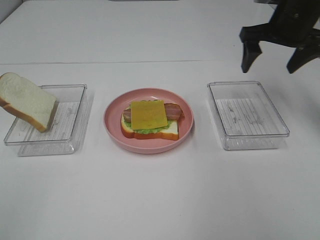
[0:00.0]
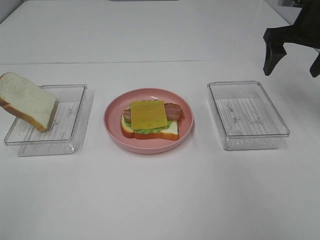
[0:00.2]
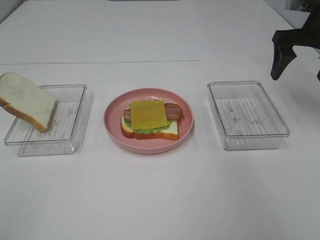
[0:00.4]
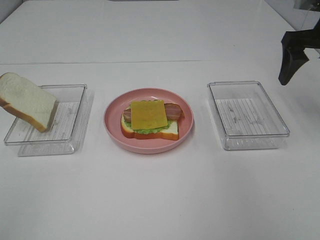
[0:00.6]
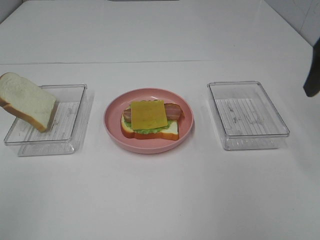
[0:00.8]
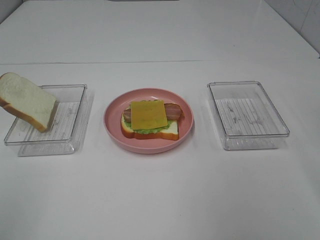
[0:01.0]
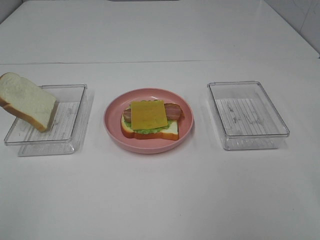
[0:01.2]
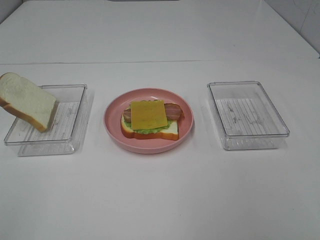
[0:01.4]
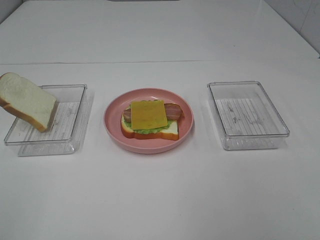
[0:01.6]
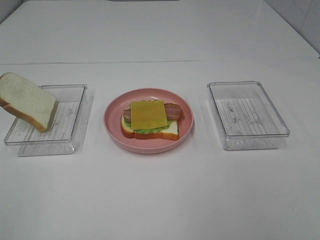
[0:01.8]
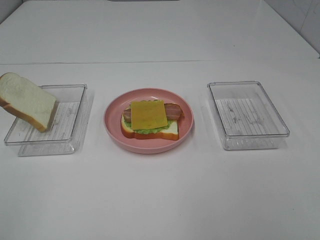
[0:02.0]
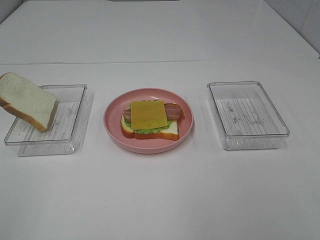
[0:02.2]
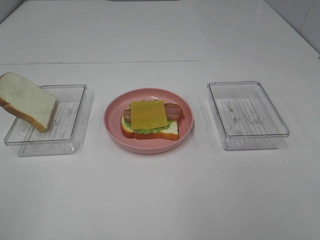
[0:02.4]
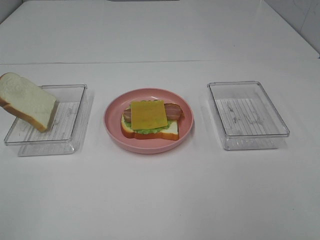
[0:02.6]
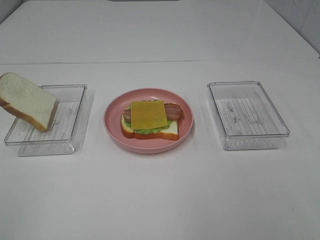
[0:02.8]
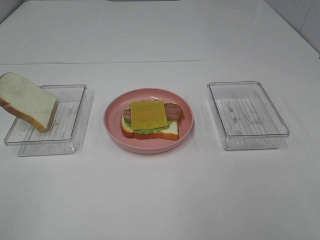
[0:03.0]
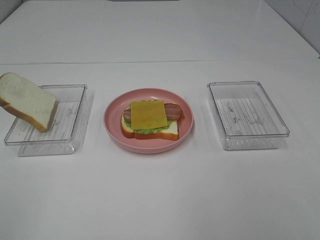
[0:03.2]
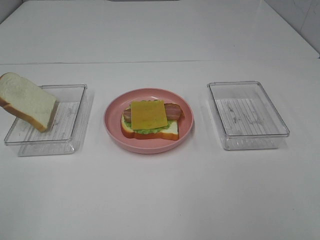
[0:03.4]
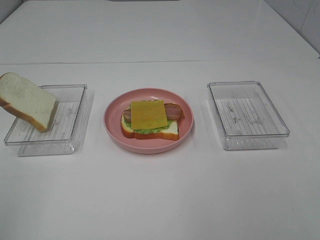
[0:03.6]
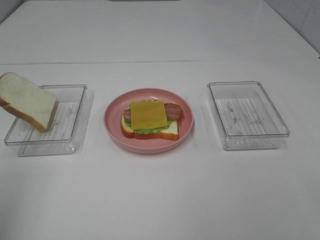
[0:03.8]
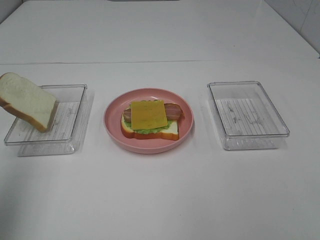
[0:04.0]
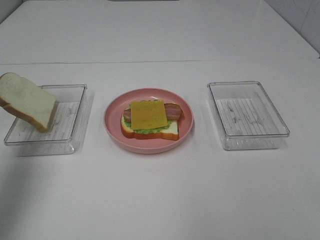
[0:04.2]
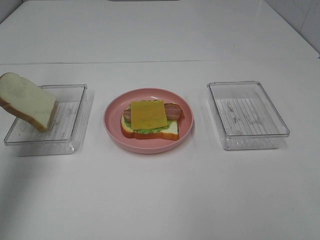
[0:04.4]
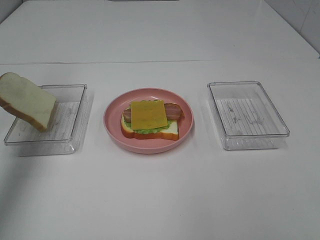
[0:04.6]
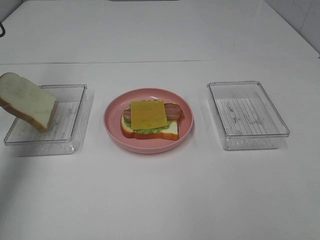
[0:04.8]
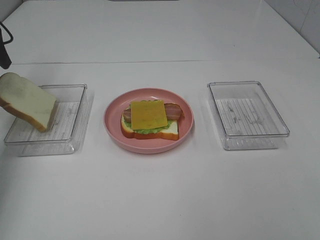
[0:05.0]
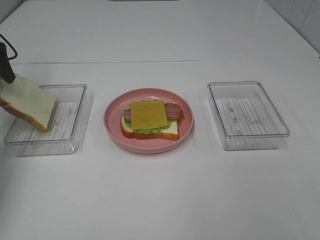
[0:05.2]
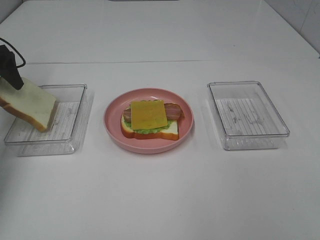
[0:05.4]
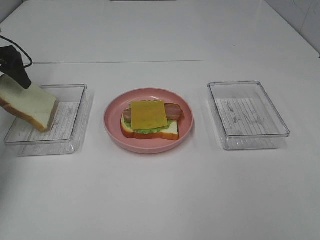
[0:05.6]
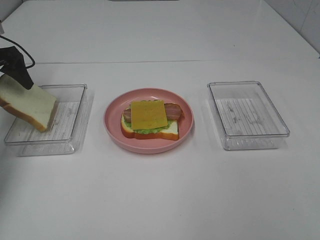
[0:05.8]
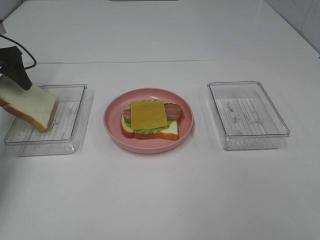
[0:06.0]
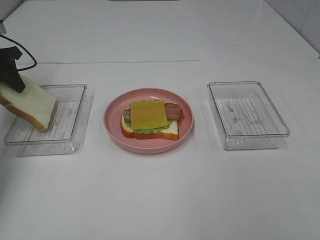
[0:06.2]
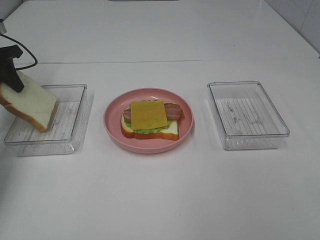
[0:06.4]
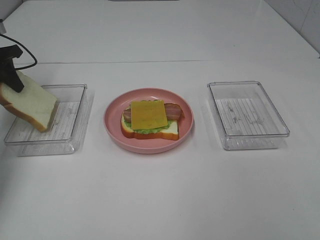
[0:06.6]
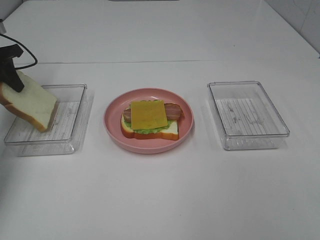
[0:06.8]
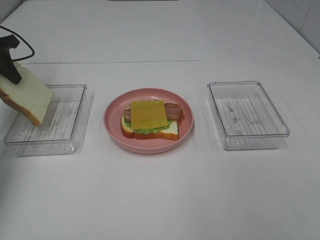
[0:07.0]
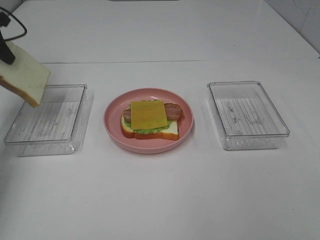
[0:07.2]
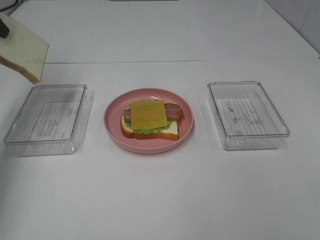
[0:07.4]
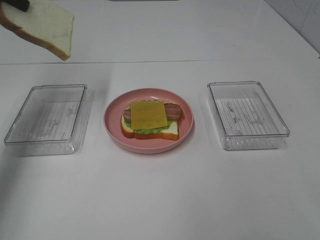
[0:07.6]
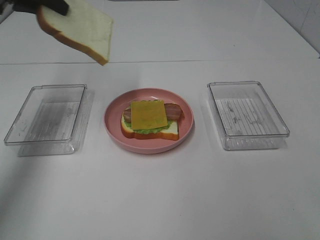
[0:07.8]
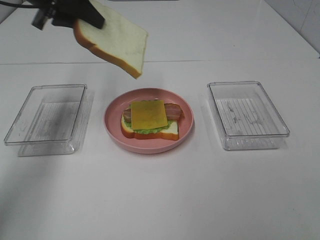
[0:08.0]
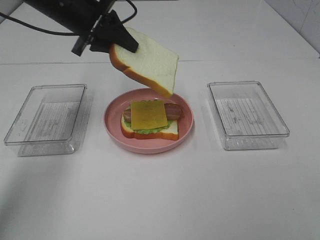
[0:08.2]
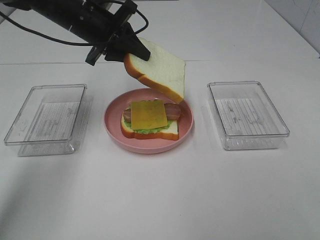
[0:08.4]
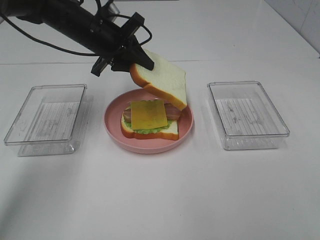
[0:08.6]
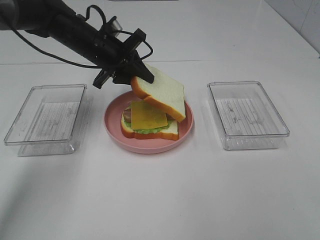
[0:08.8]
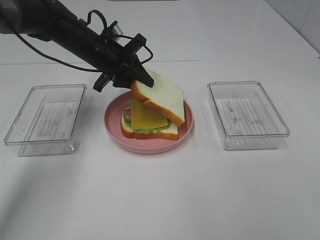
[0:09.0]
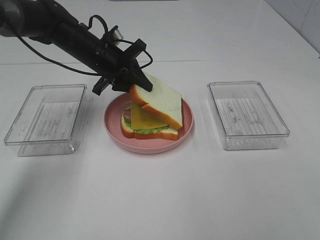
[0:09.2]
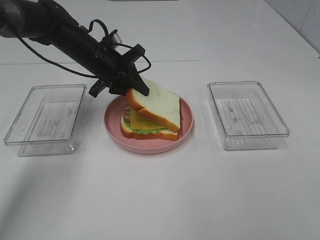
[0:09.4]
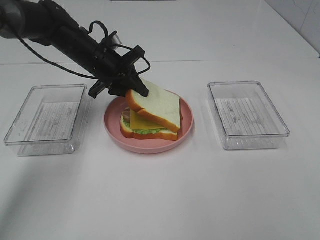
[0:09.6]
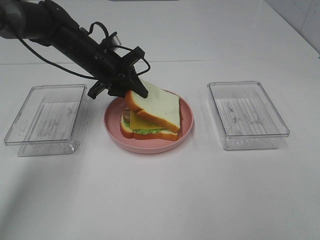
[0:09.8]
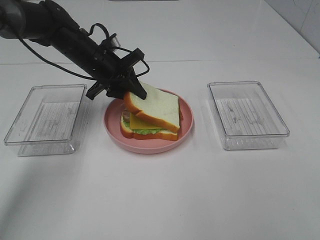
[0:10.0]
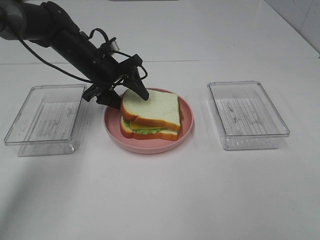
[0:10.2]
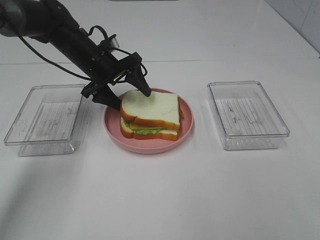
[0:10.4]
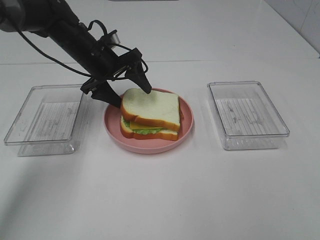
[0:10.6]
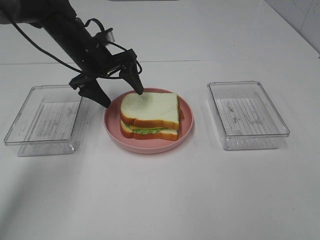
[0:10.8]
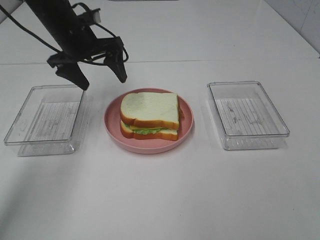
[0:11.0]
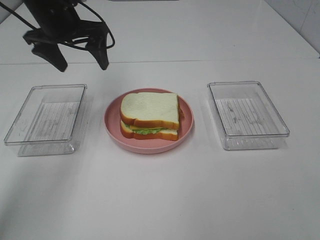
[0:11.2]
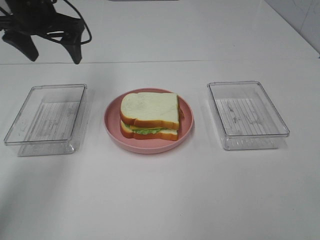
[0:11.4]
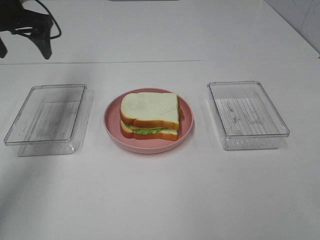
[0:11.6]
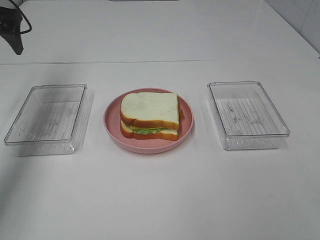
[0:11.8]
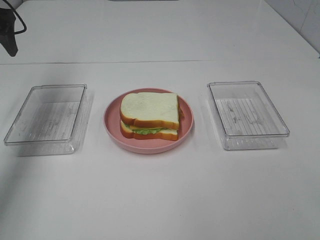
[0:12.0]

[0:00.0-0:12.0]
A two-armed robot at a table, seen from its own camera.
Task of the whole recording: Make sandwiches.
Step, 0:00.0 to 0:06.4: Left hand:grab the bread slice.
0:00.0 to 0:01.6: The right gripper goes approximately 35 cm backward.
0:03.0 to 0:04.4: The left gripper goes about 30 cm forward.
0:04.4 to 0:06.0: The left gripper is displaced forward and downward by about 25 cm.
0:06.0 to 0:07.6: The left gripper goes about 15 cm upward and to the right, and closes.
0:07.6 to 0:09.0: The left gripper moves to the right and downward, some 25 cm.
0:09.0 to 0:10.4: The left gripper opens up.
0:10.4 to 0:12.0: The left gripper moves to the left and upward, approximately 25 cm.

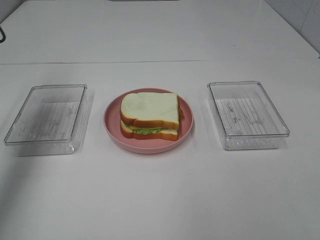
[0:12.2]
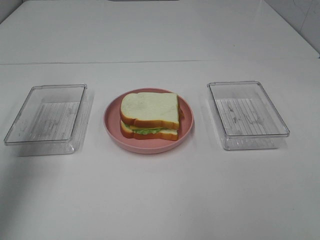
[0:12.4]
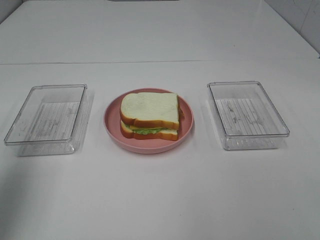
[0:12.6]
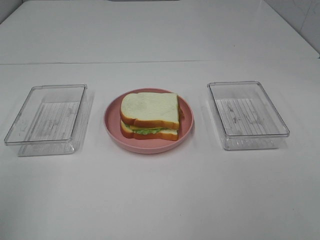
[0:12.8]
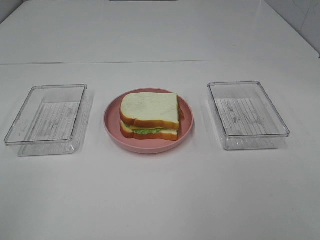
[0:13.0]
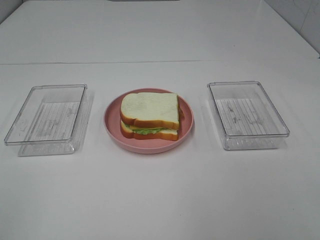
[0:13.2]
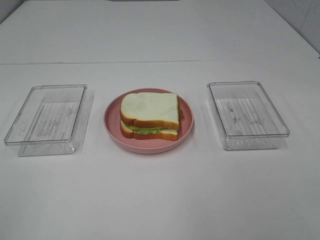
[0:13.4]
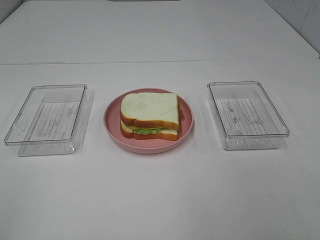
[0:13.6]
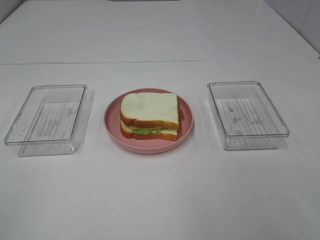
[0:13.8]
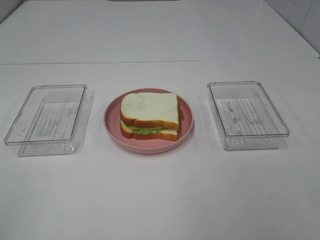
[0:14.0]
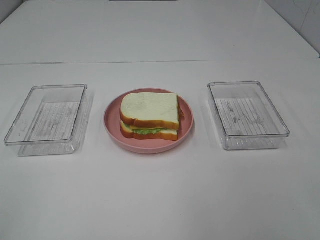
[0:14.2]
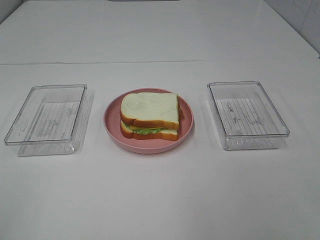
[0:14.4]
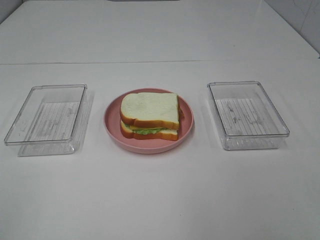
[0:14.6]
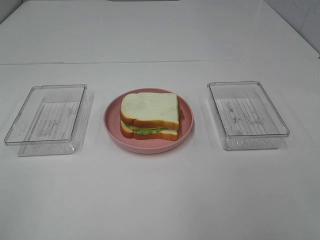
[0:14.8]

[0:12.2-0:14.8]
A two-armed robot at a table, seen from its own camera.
Task of the whole recording: Make sandwiches.
0:12.2 to 0:13.4: The left gripper shifts some 35 cm backward.
0:13.4 to 0:14.8: Both grippers stay about where they are.

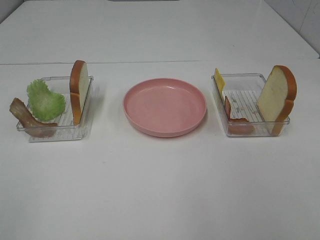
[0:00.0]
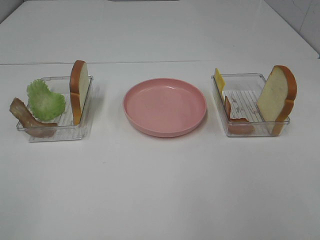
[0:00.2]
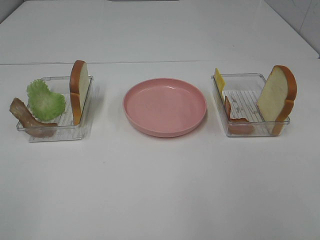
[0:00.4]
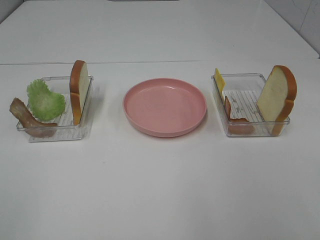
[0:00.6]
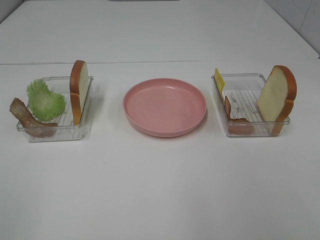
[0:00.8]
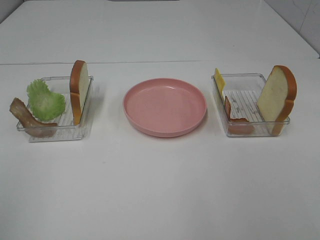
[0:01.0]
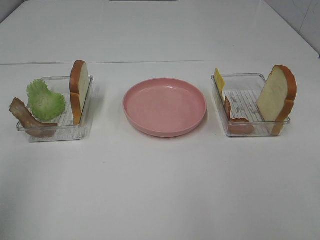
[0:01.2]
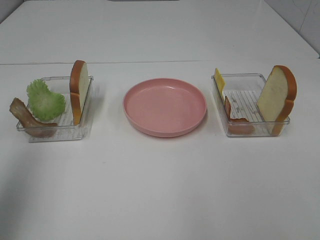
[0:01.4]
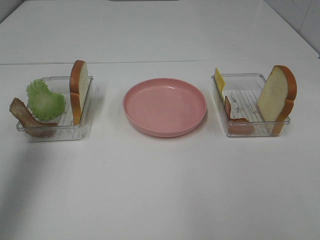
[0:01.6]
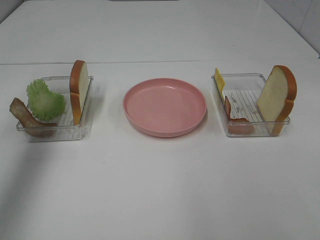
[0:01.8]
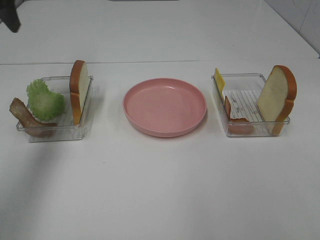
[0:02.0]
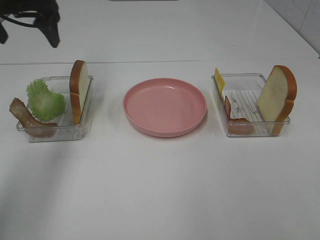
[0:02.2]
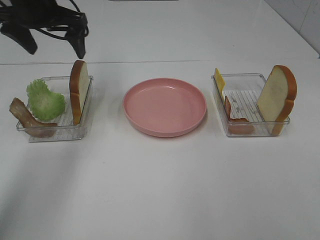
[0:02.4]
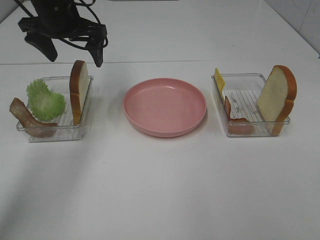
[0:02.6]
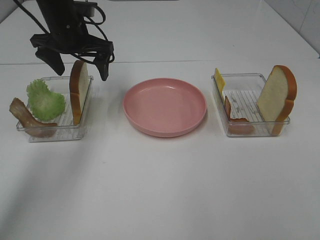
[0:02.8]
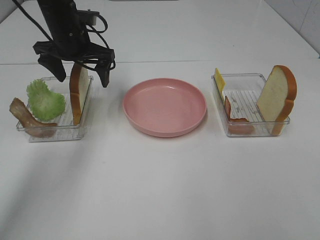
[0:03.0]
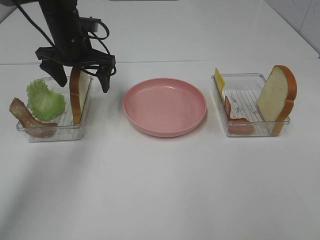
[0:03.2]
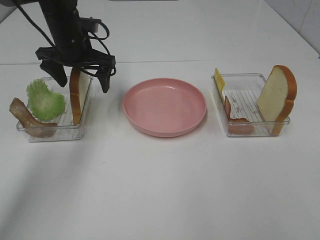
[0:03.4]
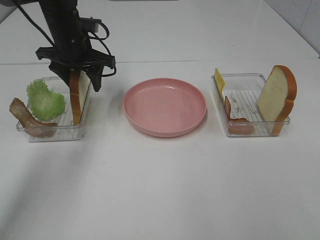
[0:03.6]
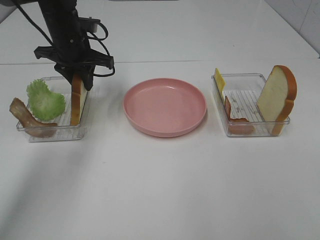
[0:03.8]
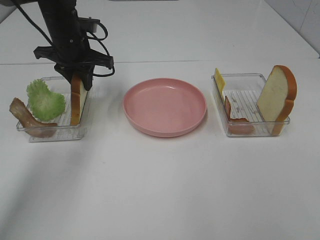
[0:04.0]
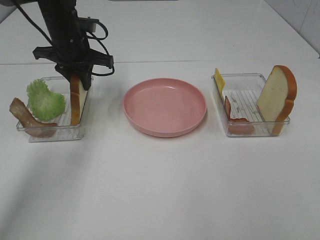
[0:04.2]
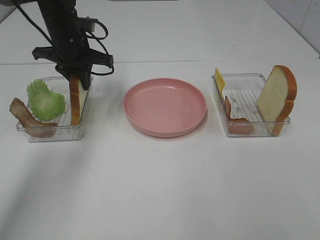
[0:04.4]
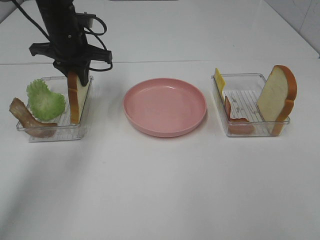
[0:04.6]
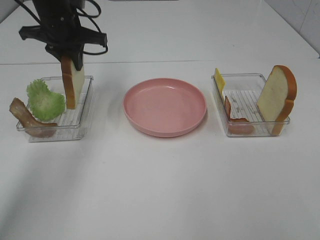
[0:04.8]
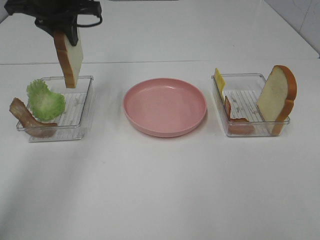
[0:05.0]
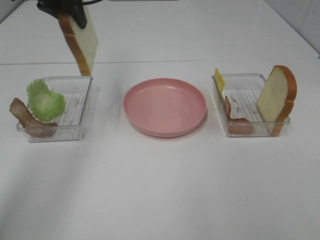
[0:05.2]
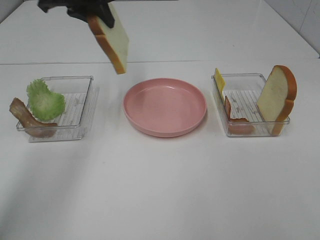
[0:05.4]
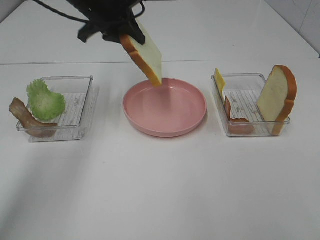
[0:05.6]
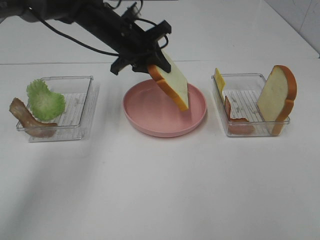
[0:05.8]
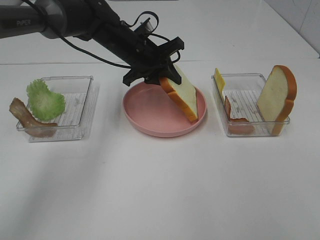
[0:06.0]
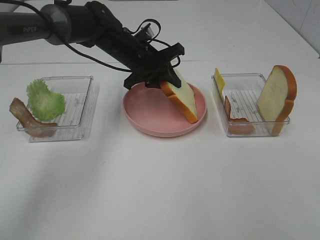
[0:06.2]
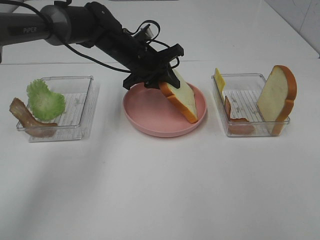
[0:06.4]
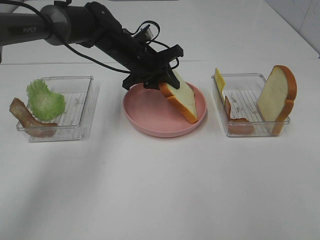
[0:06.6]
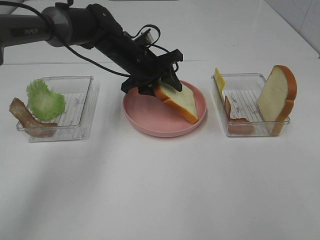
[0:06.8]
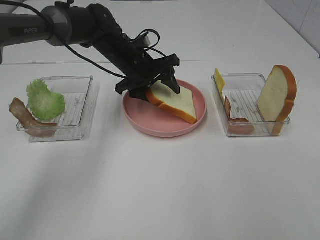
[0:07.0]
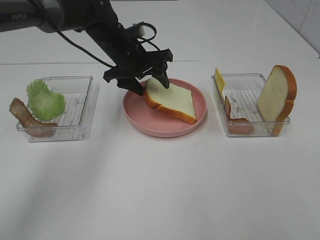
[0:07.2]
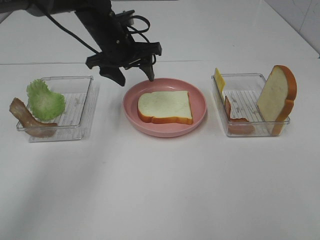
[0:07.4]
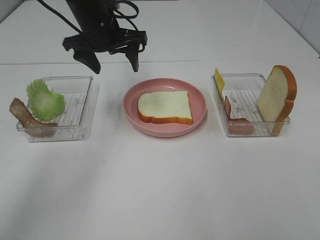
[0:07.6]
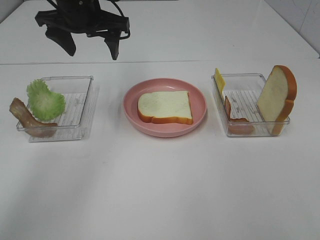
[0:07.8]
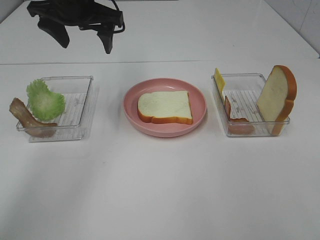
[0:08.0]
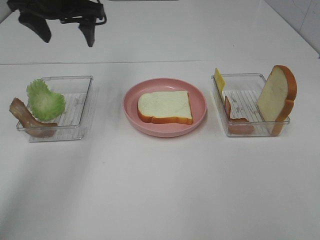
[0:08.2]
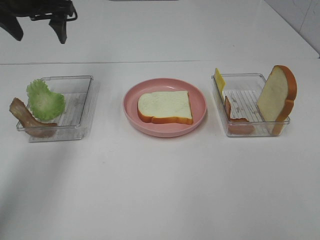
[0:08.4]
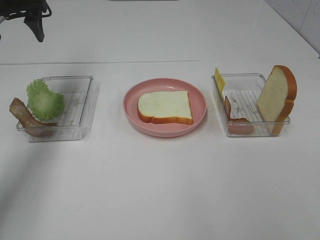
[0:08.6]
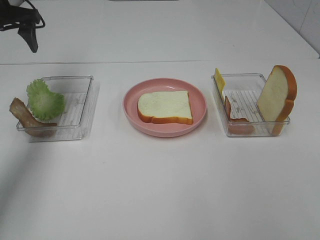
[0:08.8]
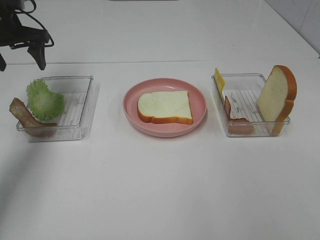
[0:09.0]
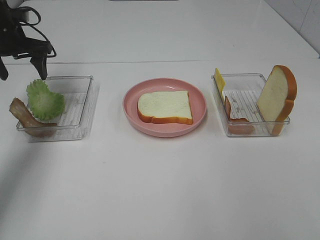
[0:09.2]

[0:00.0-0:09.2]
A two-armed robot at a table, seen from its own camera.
Task of the whole recording: Make sandwiches.
Step, 0:00.0 to 0:04.4: Left hand:grab the bread slice.
Step, 0:04.6 to 0:07.4: Left hand:place the bread slice on the plate.
0:00.0 to 0:01.6: The left gripper heads forward, covering some 25 cm.
0:01.6 to 0:03.0: The left gripper goes approximately 30 cm forward, downward and to the right.
0:03.0 to 0:04.6: The left gripper closes up.
0:04.6 to 0:06.2: The left gripper moves to the right, some 10 cm, and moves roughly 10 cm upward and comes back.
0:06.2 to 0:07.6: The left gripper shifts about 10 cm upward and to the left, and opens its fingers.
0:07.6 to 0:09.2: The left gripper goes roughly 20 cm to the left.
